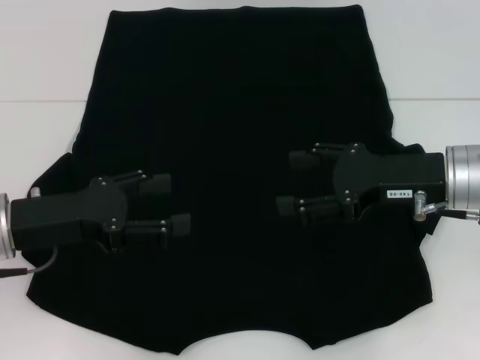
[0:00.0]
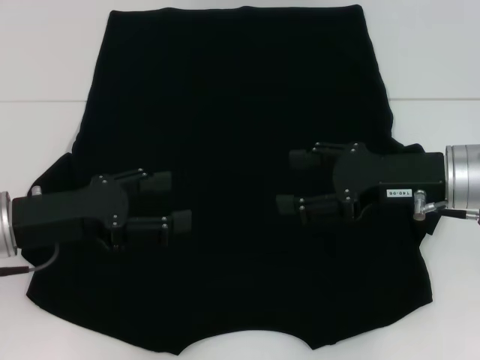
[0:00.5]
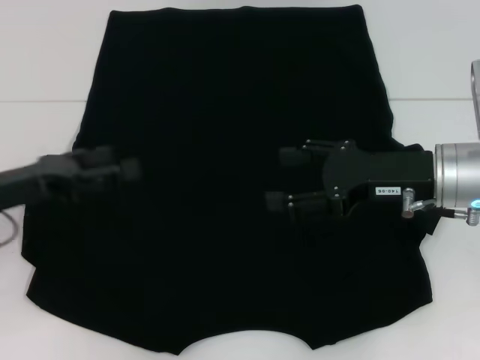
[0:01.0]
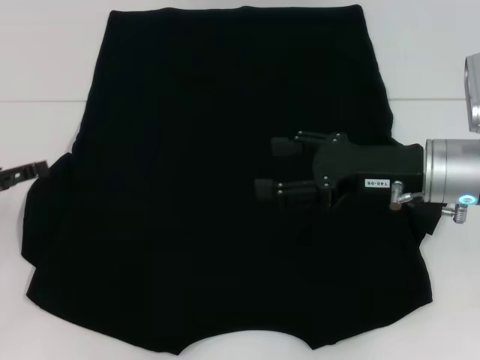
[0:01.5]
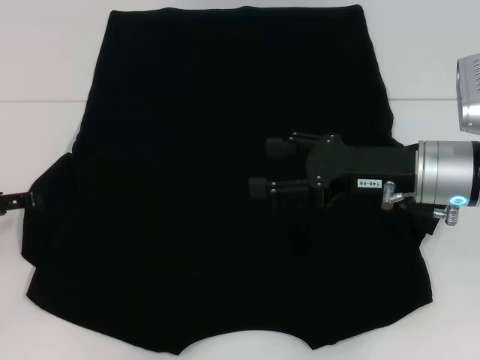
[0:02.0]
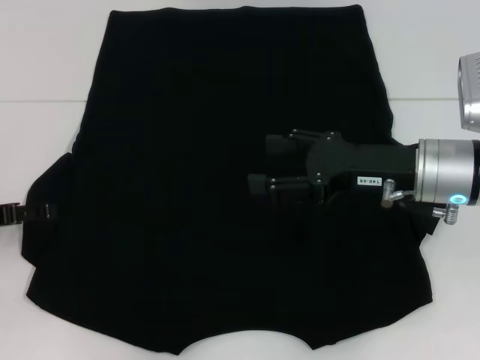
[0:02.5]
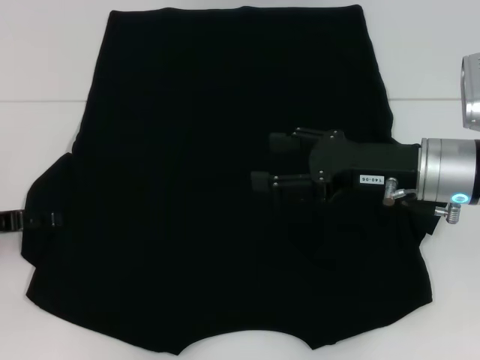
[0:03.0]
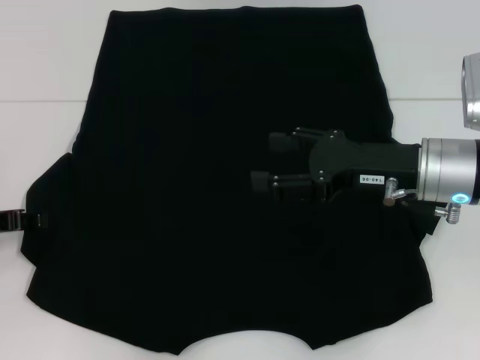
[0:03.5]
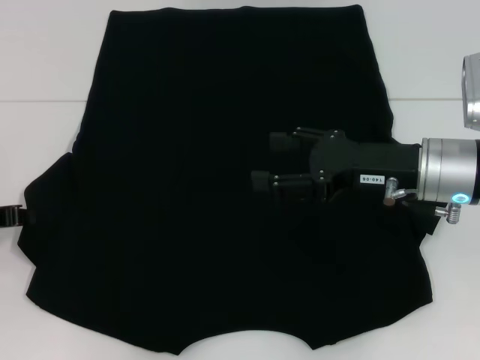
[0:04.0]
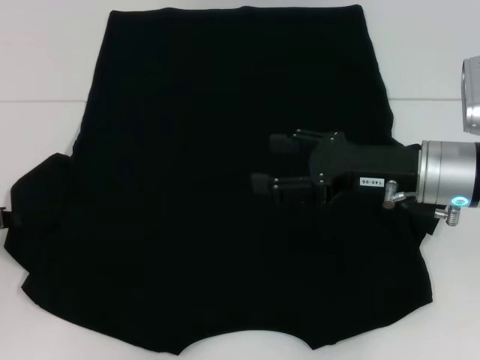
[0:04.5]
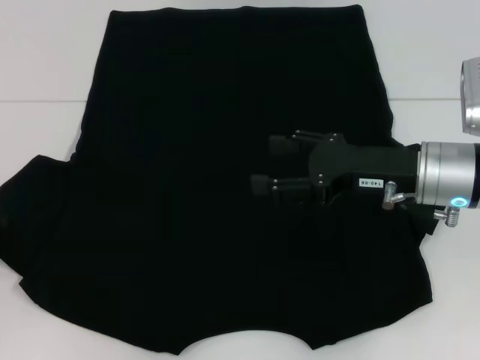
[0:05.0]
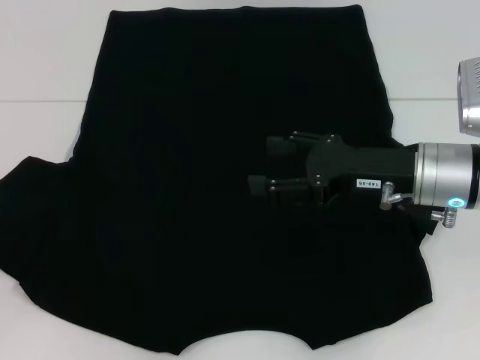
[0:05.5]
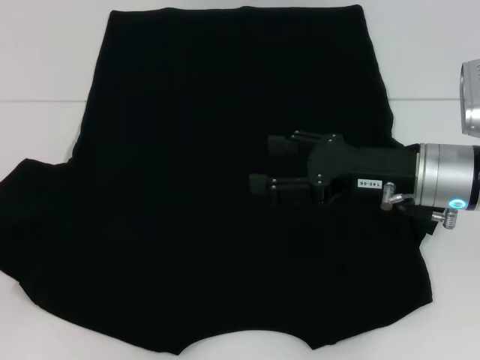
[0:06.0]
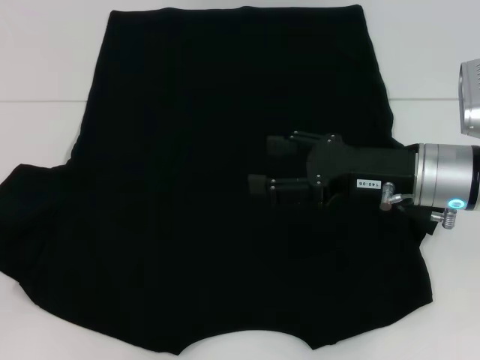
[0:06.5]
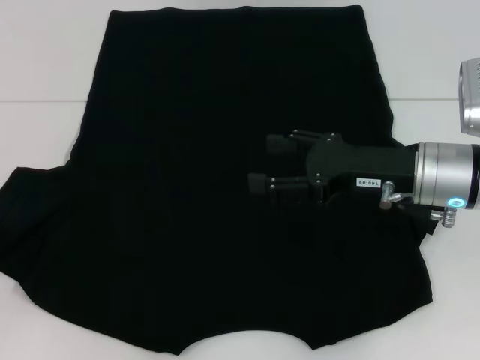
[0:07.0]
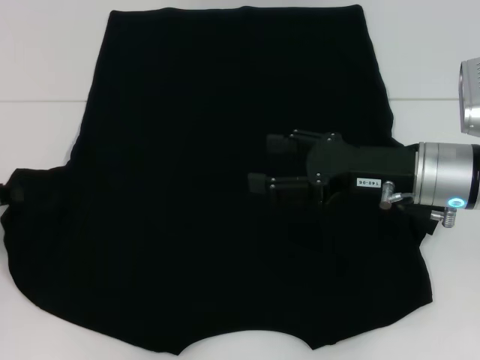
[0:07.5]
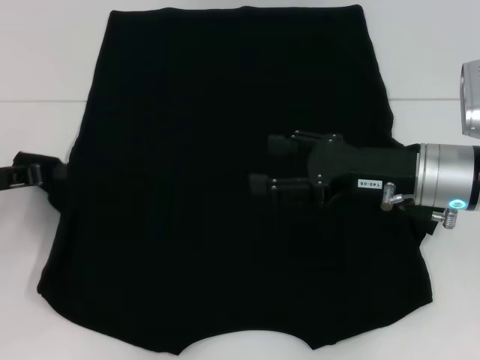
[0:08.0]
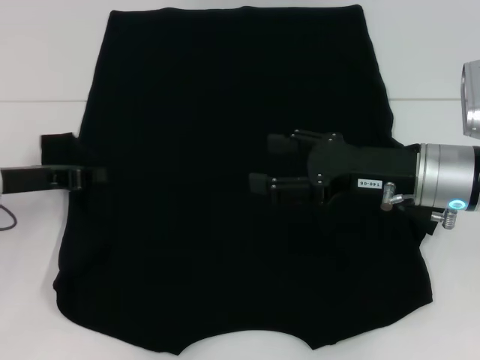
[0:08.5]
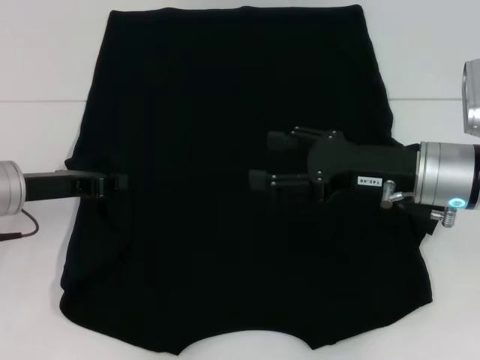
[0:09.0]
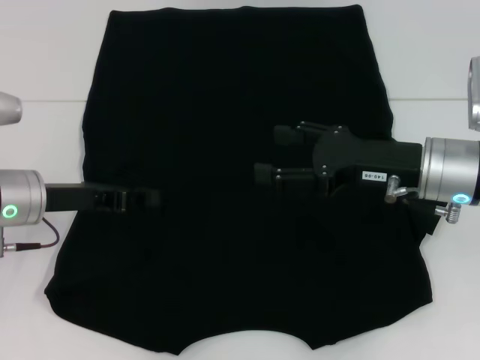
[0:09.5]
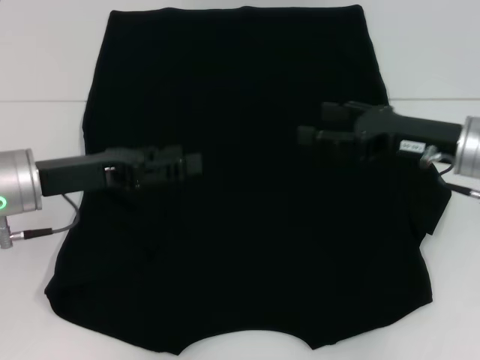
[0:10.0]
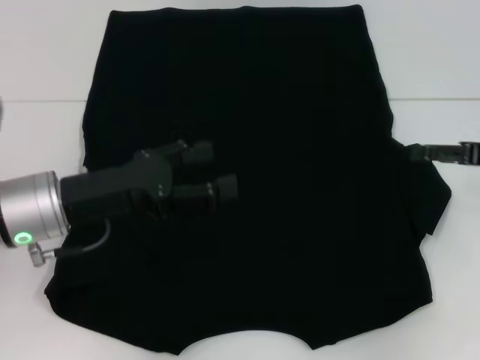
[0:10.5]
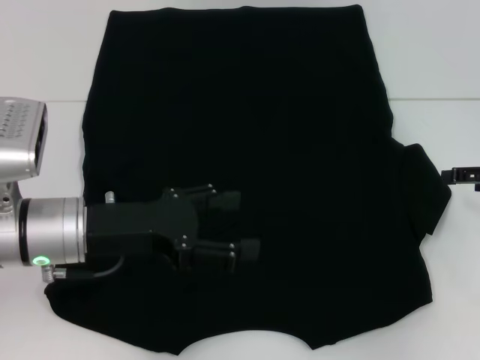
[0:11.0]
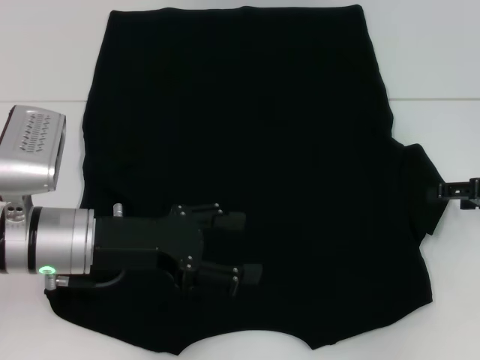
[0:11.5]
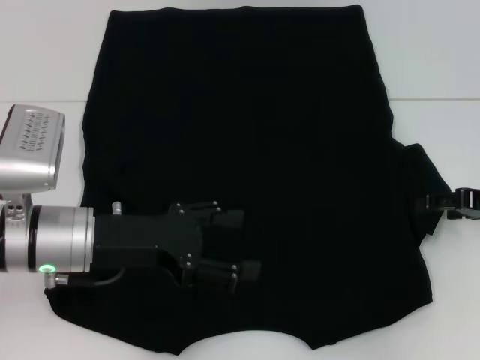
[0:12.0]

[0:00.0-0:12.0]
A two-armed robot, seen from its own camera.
Step, 0:00.0 to 0:09.5: Fold the bottom left sleeve with your left hand.
0:00.0 to 0:02.0: The left gripper shifts roughly 10 cm to the left.
0:02.0 to 0:04.0: The left gripper closes its fingers.
0:04.0 to 0:06.0: There are only small adjustments of the grippers.
0:06.0 to 0:08.0: The left gripper travels to the right by approximately 5 cm.
0:08.0 to 0:10.0: The left gripper shifts some 10 cm to the right, and opens.
0:10.0 to 0:12.0: The right gripper travels to the right by roughly 10 cm; the left gripper changes place by about 5 cm, and opens its fingers.

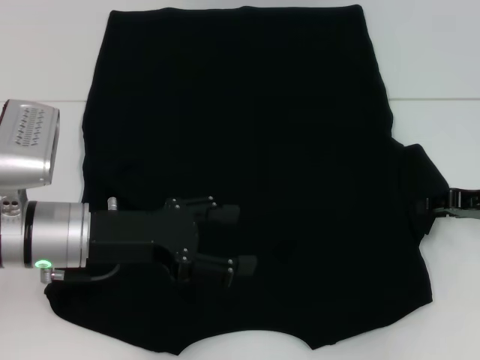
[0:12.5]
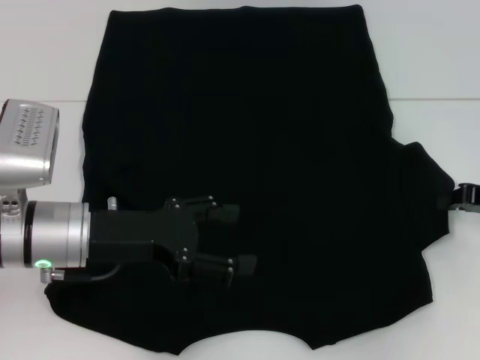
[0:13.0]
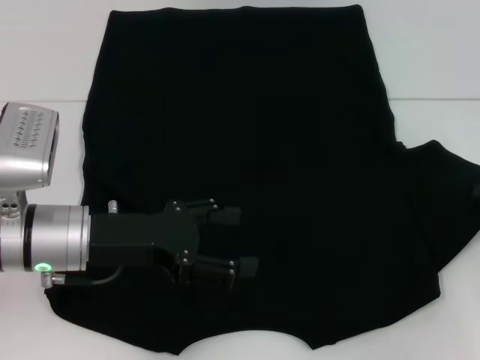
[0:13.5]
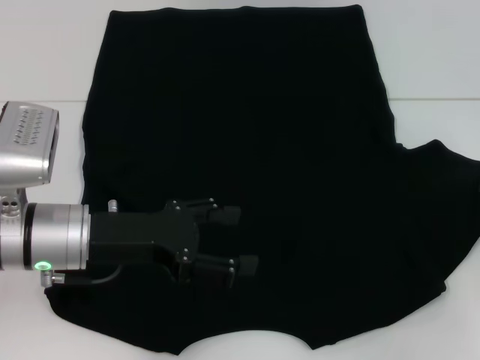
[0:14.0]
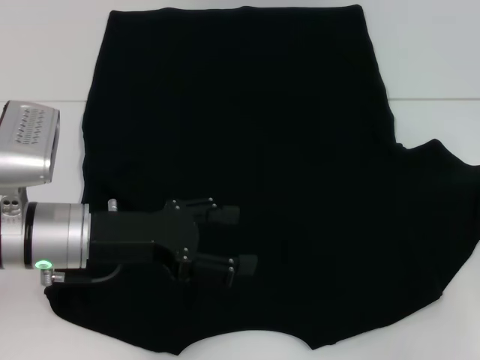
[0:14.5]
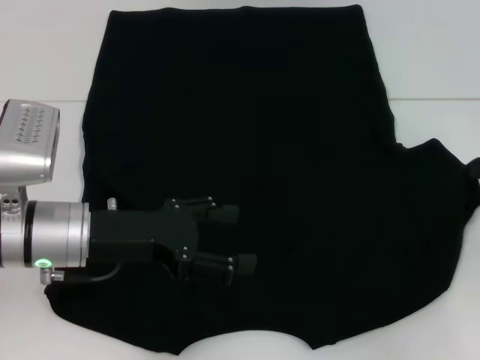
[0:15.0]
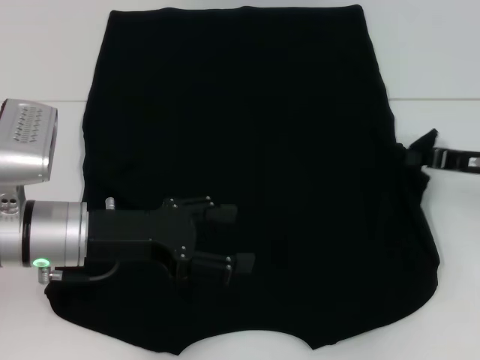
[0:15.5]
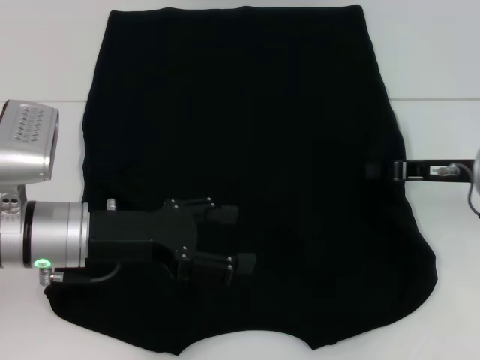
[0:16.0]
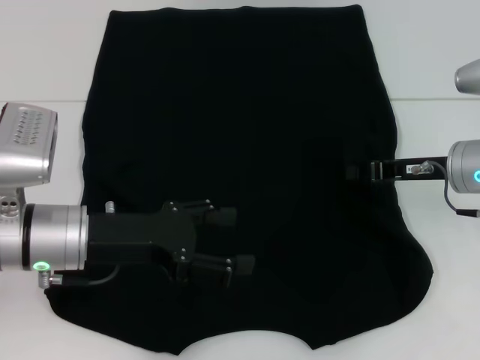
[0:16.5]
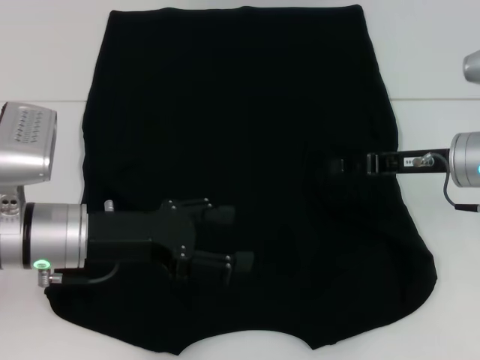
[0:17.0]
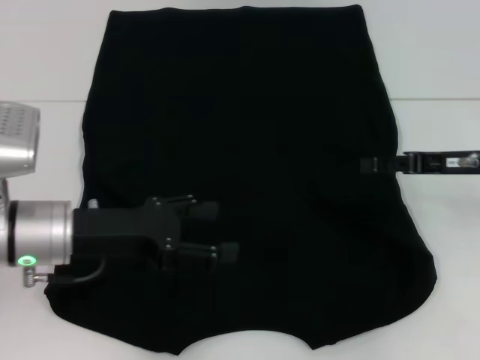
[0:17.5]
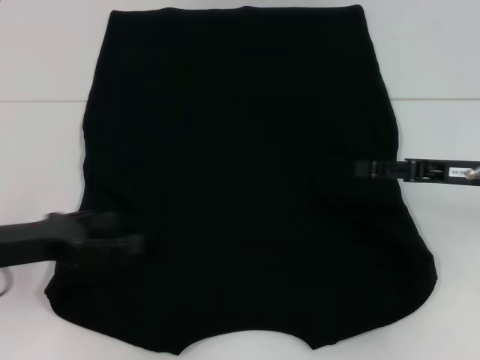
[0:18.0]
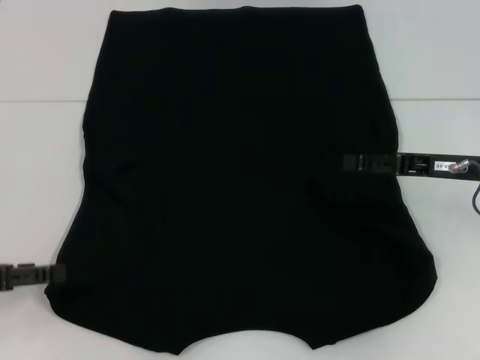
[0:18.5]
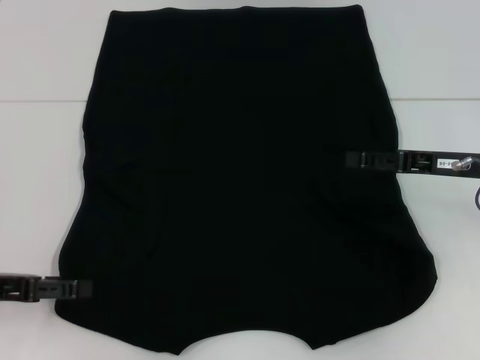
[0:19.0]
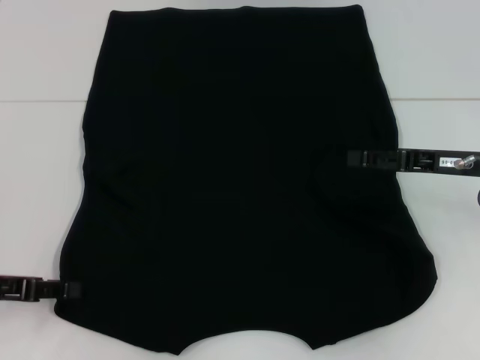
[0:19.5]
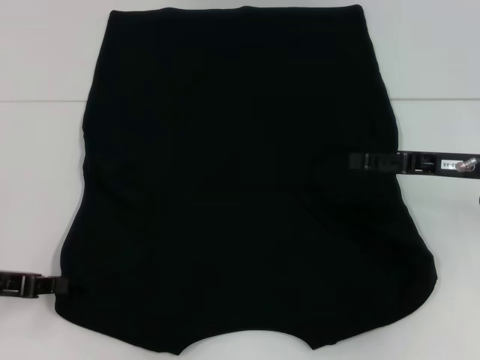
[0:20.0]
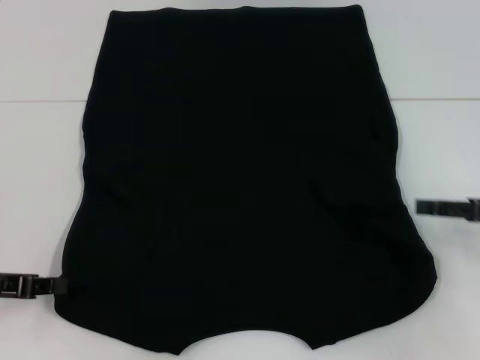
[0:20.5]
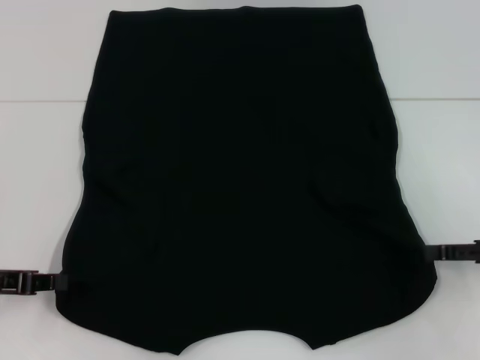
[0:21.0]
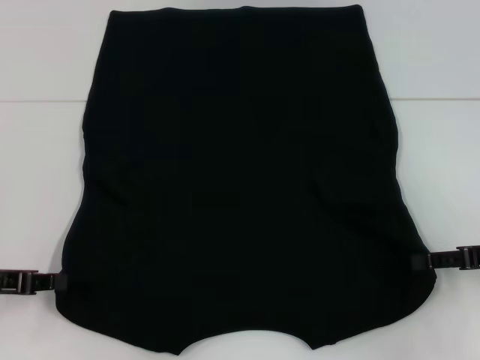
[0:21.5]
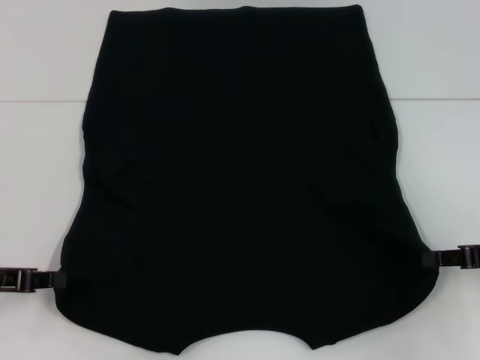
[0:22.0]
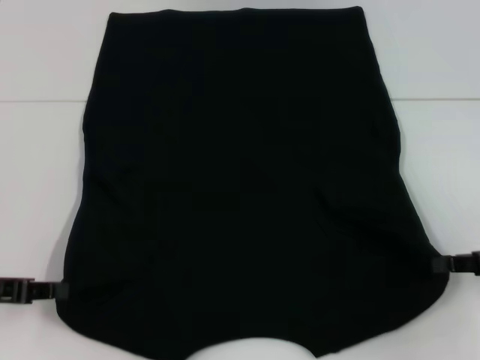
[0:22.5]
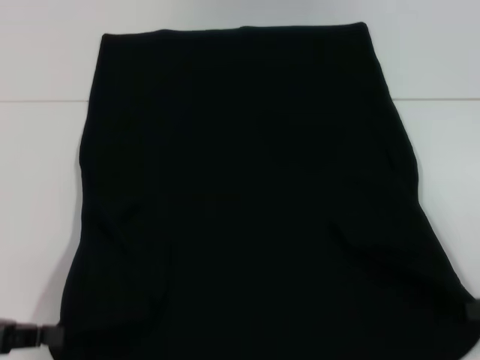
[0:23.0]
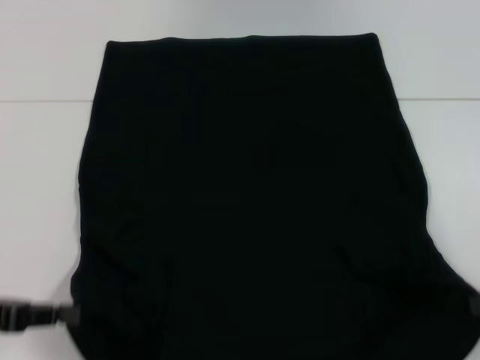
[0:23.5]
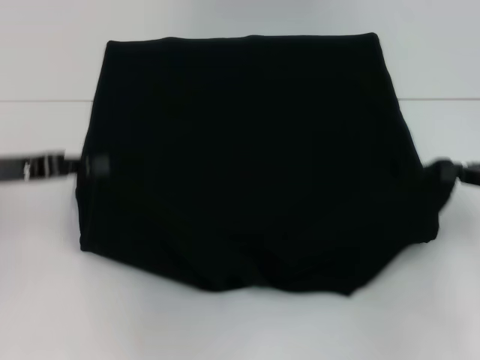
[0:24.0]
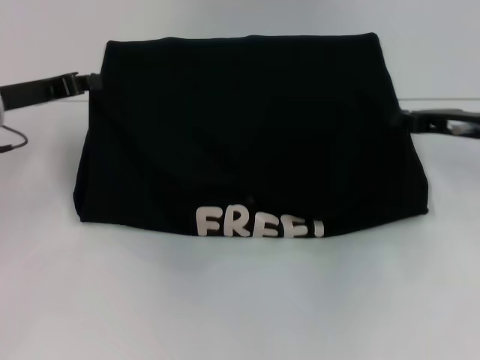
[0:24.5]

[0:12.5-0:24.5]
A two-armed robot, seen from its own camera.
Step, 0:12.5 to 0:17.0: Fold the bottom right sleeve with your right hand.
Step, 0:17.5 to 0:20.0: Grab the bottom left corner with your left hand.
Step, 0:20.5 to 0:22.0: Grab the bottom right corner with your right hand.
0:12.5 to 0:14.5: The right gripper travels to the right by approximately 5 cm, and closes up.
0:14.5 to 0:16.5: The right gripper is displaced to the left by some 15 cm.
0:16.5 to 0:18.5: The left gripper moves to the left, approximately 15 cm. The right gripper opens up.
0:18.5 to 0:20.5: The left gripper closes. Meanwhile the right gripper goes approximately 5 cm to the right.
0:20.5 to 0:22.5: The right gripper closes up.
0:22.5 to 0:24.5: The right gripper travels forward and to the left by about 15 cm. The left gripper goes approximately 15 cm forward.

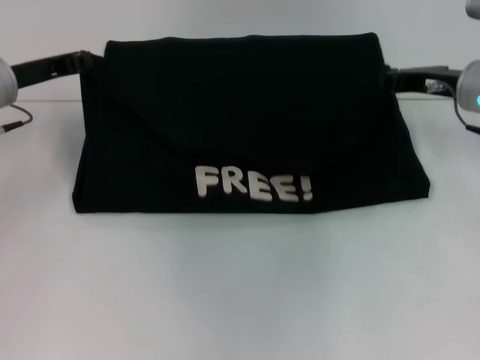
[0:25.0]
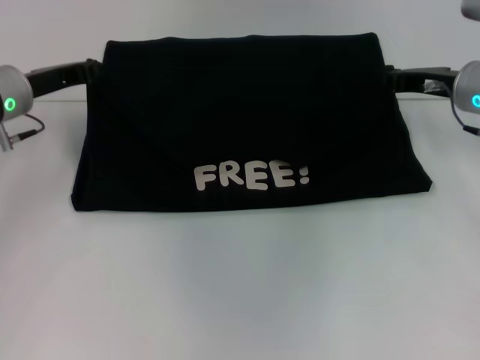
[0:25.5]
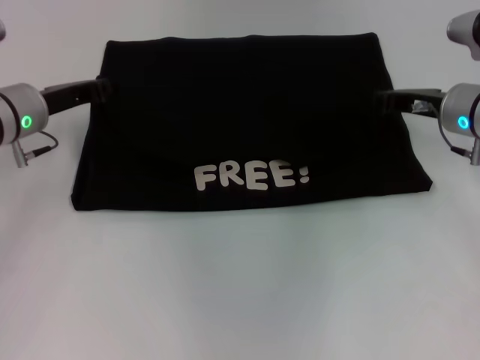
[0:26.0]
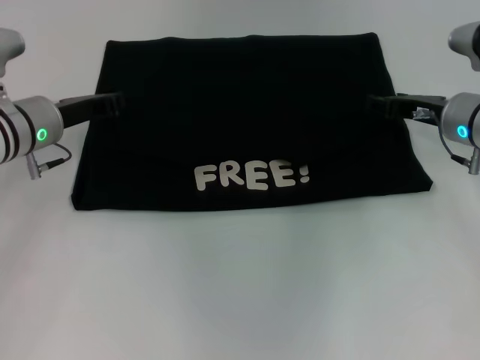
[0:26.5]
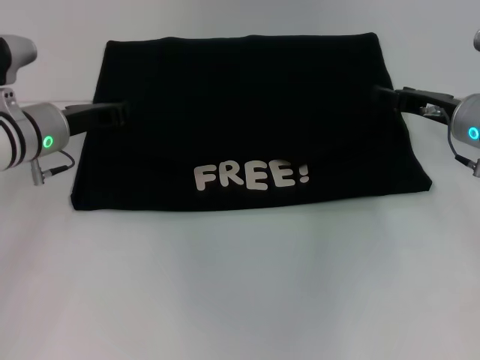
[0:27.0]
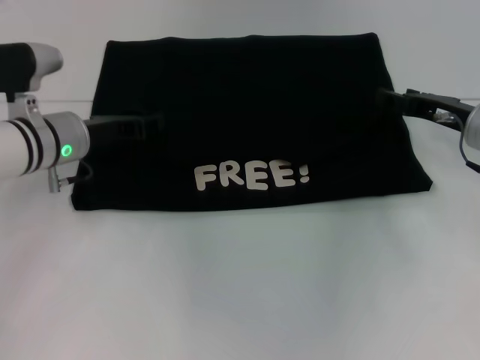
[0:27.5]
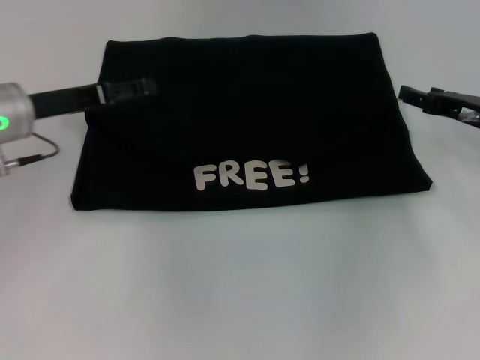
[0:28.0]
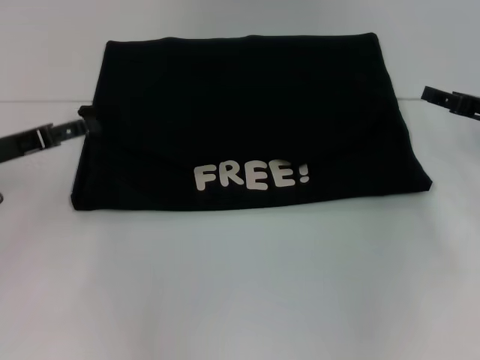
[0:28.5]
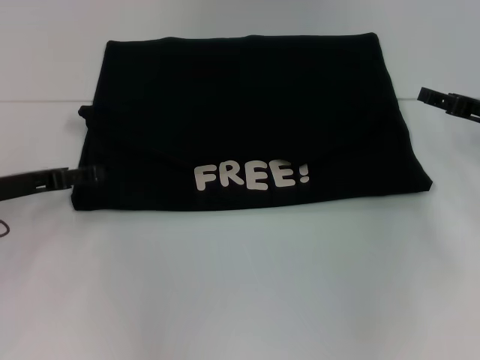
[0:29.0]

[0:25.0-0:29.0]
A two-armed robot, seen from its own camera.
0:25.0 to 0:27.0: The left gripper shifts by about 5 cm. The right gripper opens.
0:27.0 to 0:29.0: The right gripper moves to the right, roughly 5 cm, while the left gripper heads backward and to the left, covering about 10 cm, and opens up.
